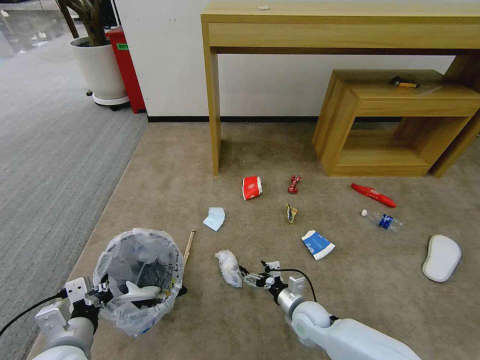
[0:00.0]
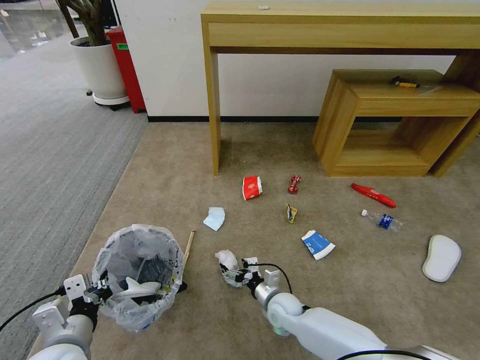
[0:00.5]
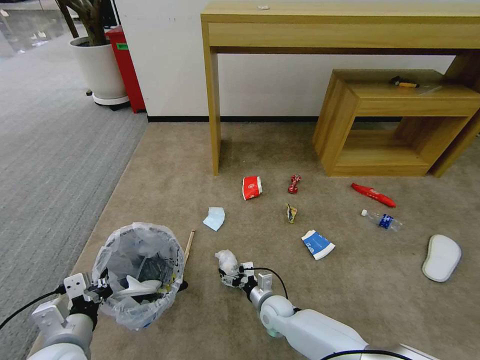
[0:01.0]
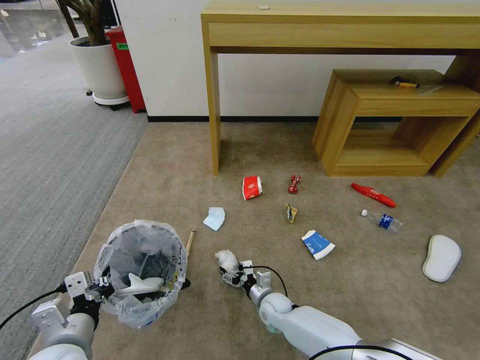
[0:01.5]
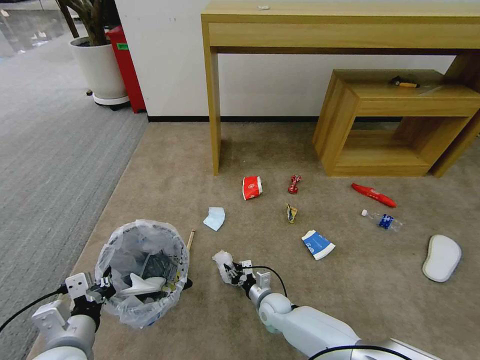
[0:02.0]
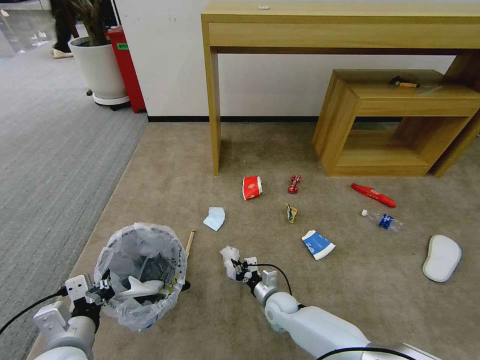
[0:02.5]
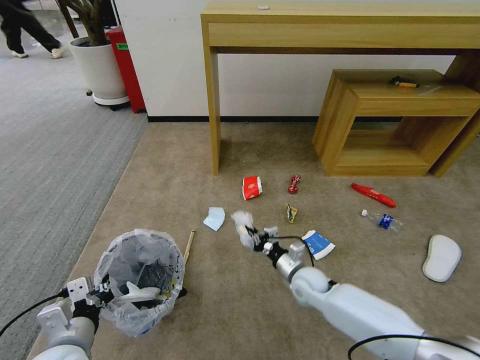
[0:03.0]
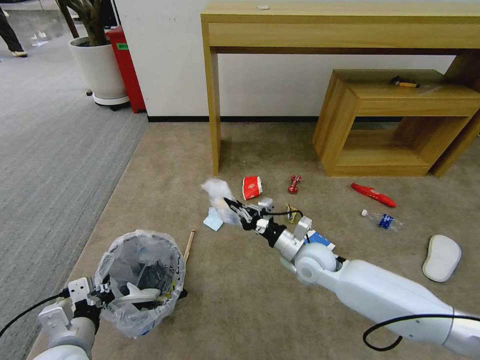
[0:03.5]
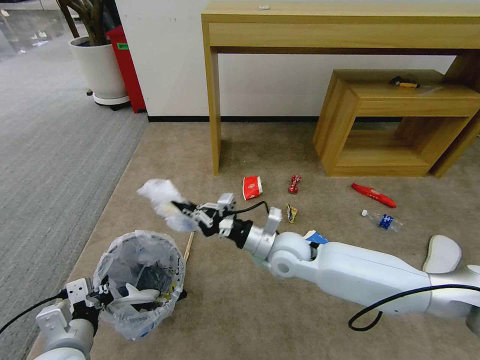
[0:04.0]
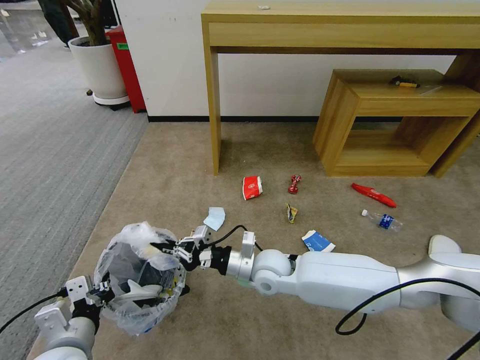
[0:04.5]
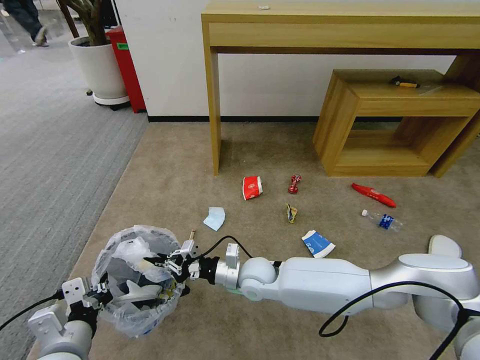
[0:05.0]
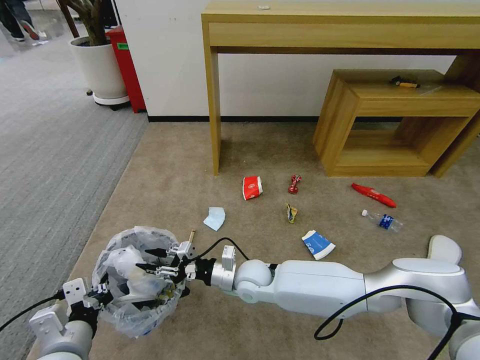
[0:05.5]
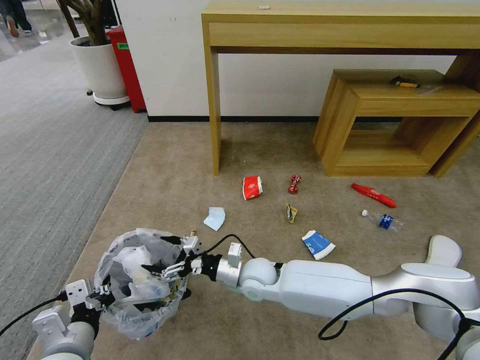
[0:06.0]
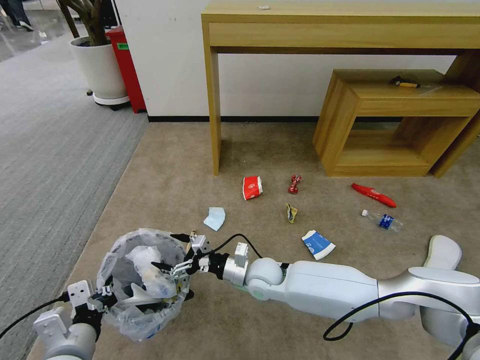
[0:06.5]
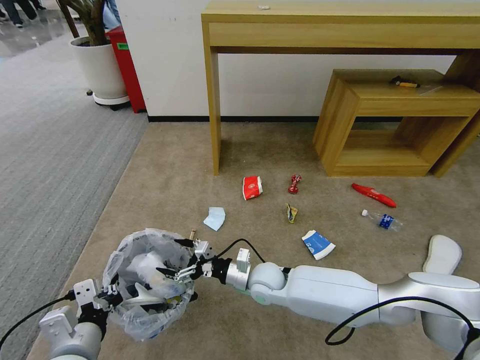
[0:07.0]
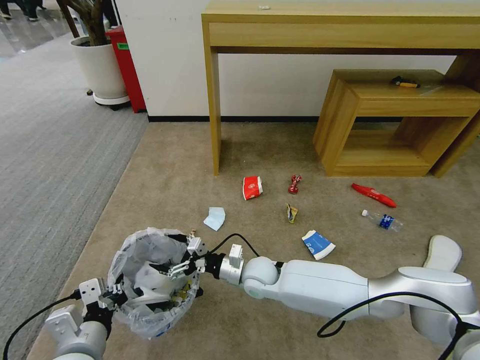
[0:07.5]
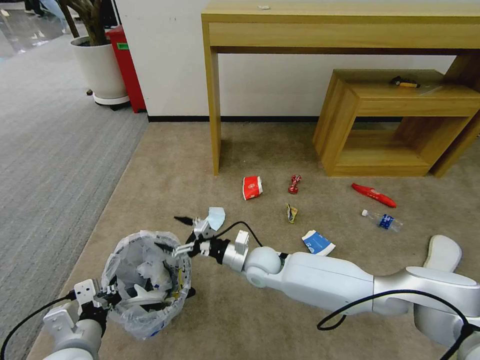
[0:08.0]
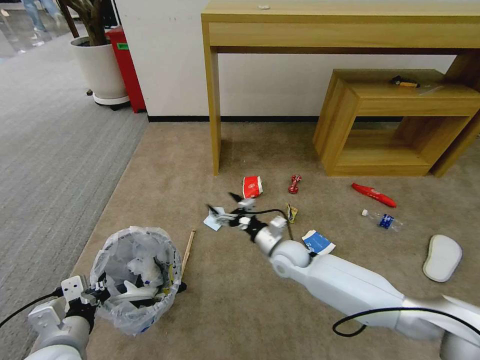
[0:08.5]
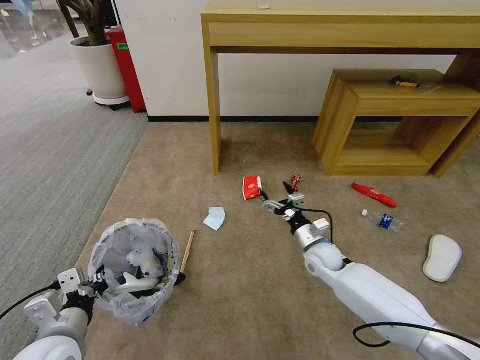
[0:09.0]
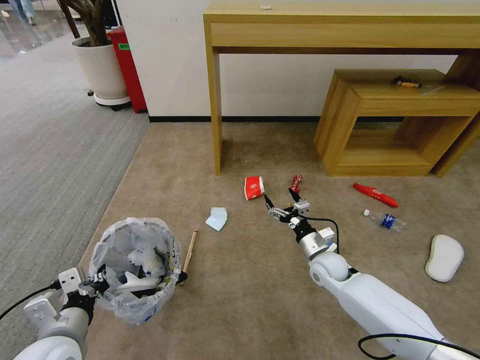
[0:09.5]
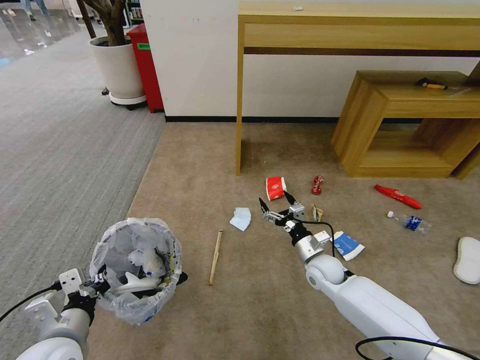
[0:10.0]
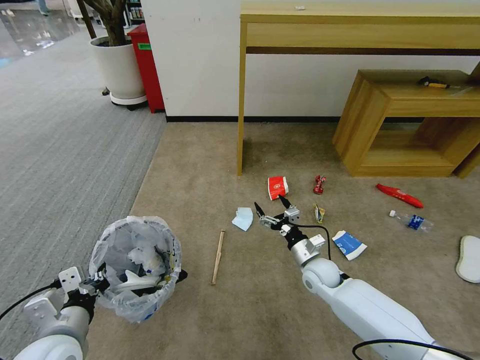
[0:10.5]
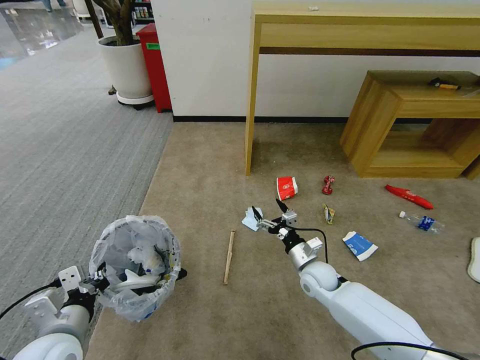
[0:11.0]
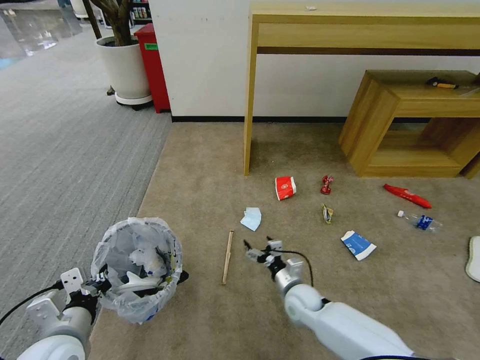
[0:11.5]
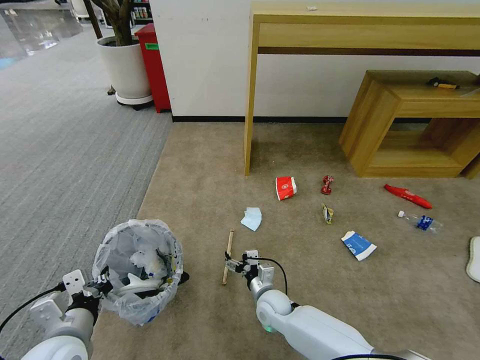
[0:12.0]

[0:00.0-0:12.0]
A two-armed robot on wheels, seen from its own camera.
Task of the whole recording: Pick up the trash bin and place the garbage on the floor into it.
0:00.0 to 0:02.0: The right gripper heads to the left and downward, covering about 10 cm, and closes up.
0:02.0 to 0:04.0: The right gripper goes about 30 cm upward.
0:04.0 to 0:06.0: The right gripper goes some 10 cm downward and to the left, and opens its fingers.
0:06.0 to 0:08.0: There are only small adjustments of the grippers.
0:08.0 to 0:10.0: The right gripper travels to the right by roughly 20 cm.
0:10.0 to 0:12.0: The right gripper travels to the left, downward and backward by roughly 20 cm.

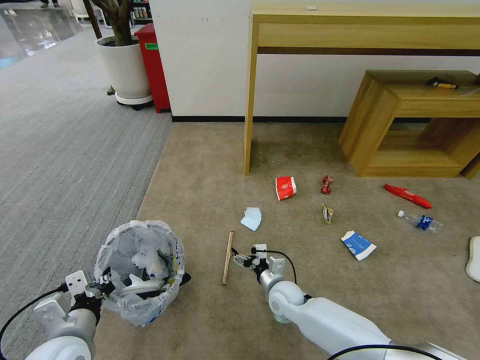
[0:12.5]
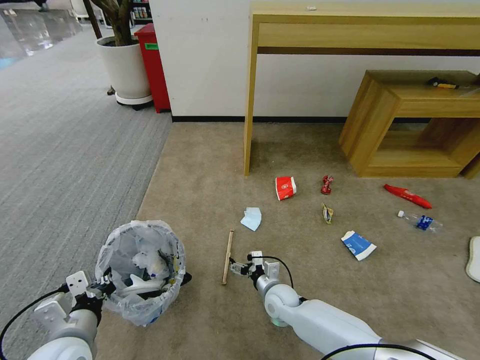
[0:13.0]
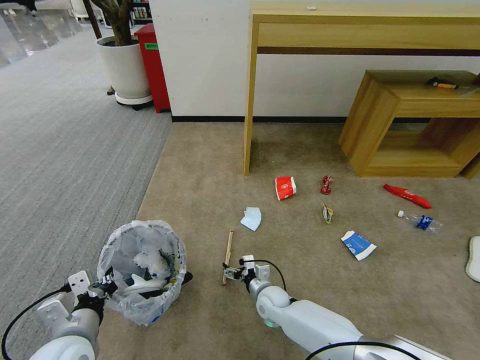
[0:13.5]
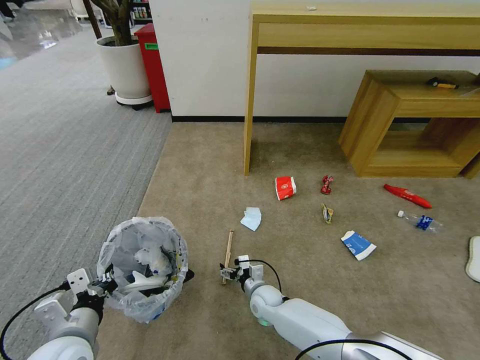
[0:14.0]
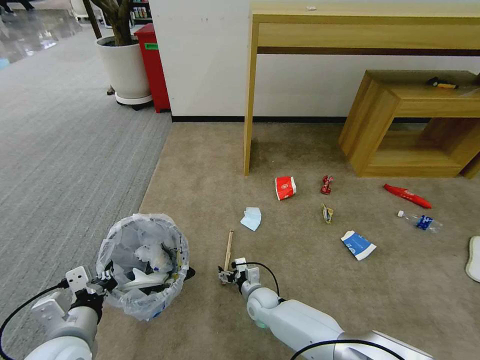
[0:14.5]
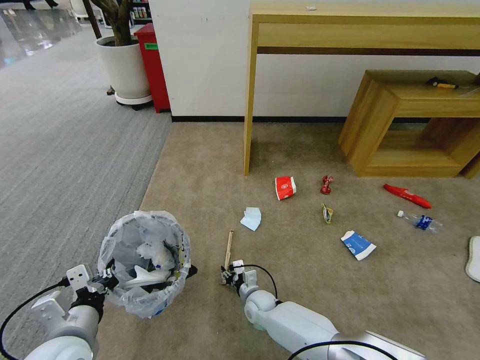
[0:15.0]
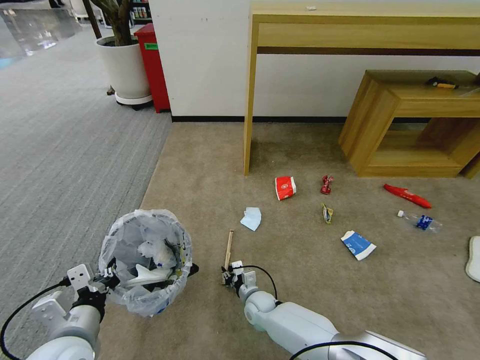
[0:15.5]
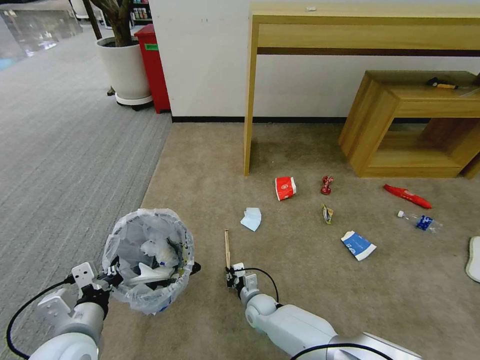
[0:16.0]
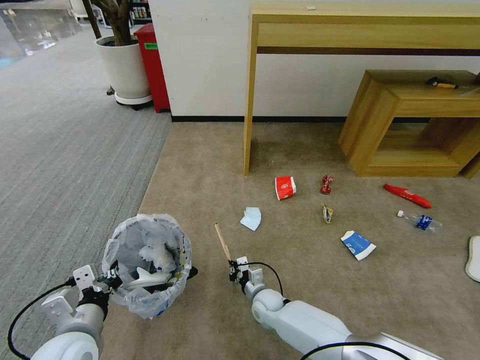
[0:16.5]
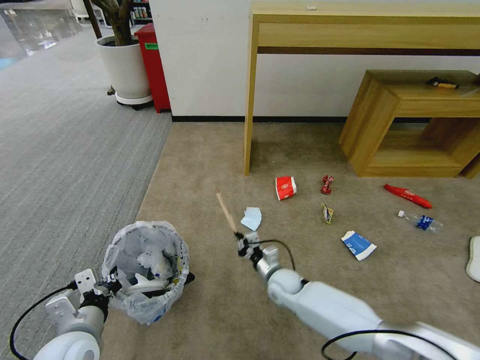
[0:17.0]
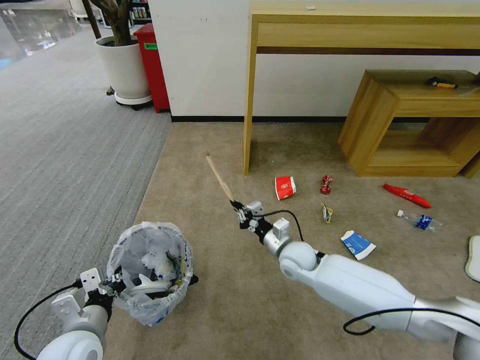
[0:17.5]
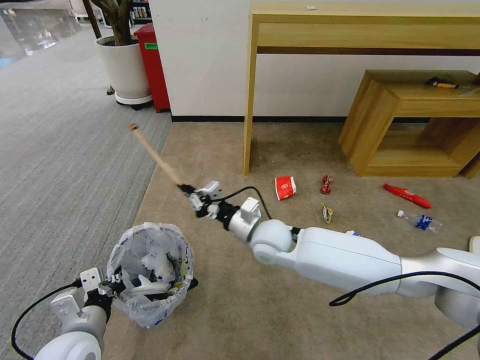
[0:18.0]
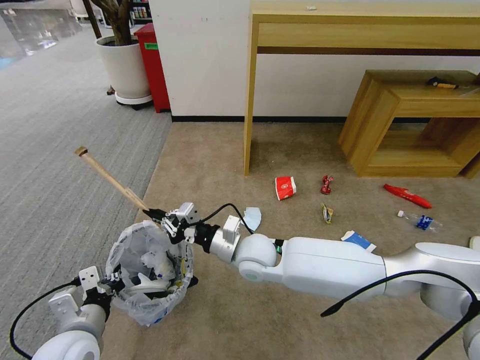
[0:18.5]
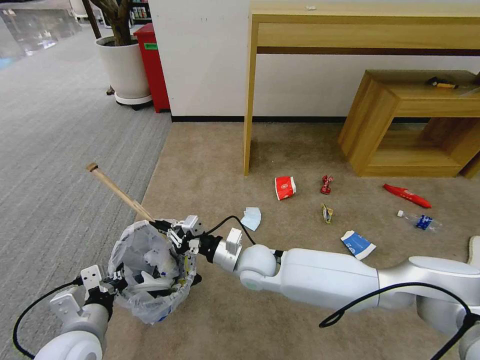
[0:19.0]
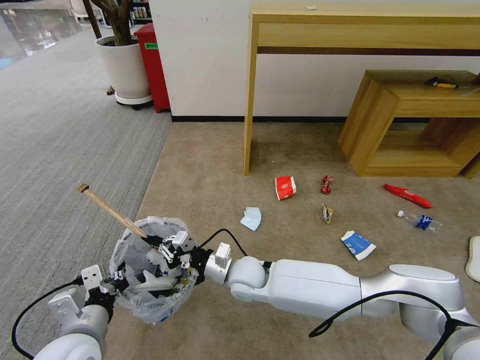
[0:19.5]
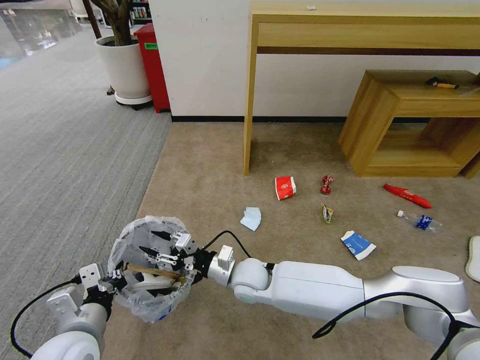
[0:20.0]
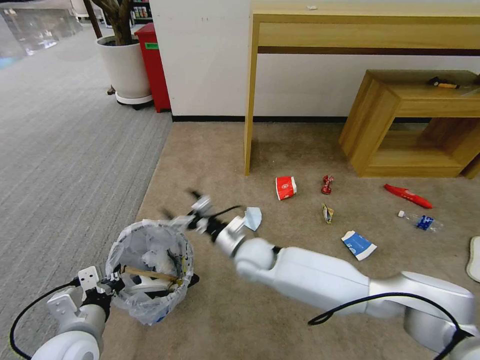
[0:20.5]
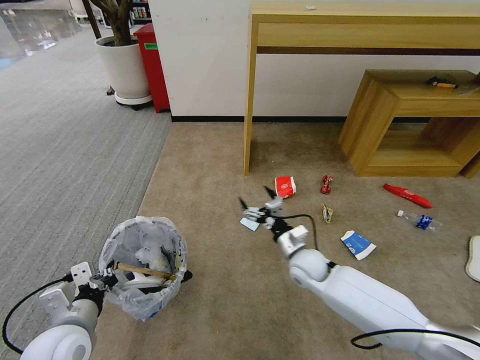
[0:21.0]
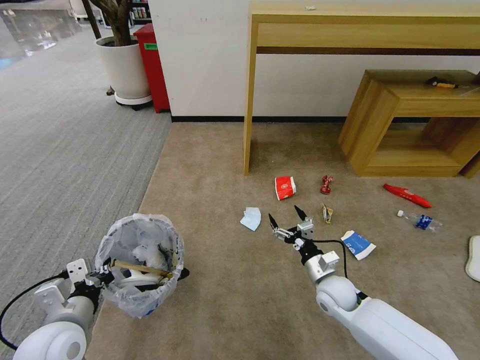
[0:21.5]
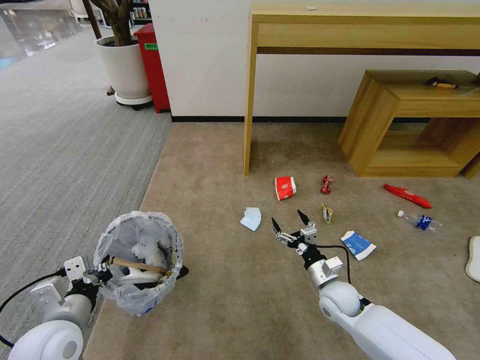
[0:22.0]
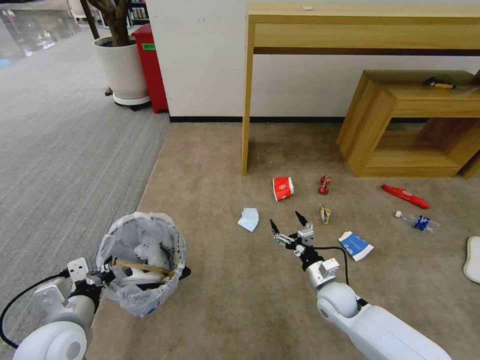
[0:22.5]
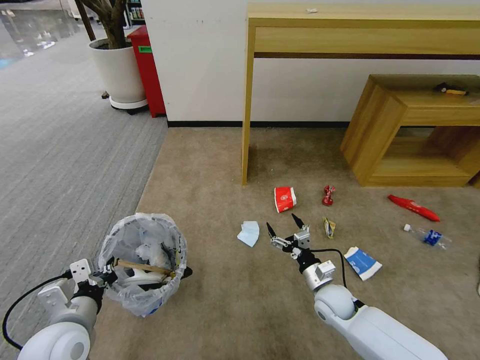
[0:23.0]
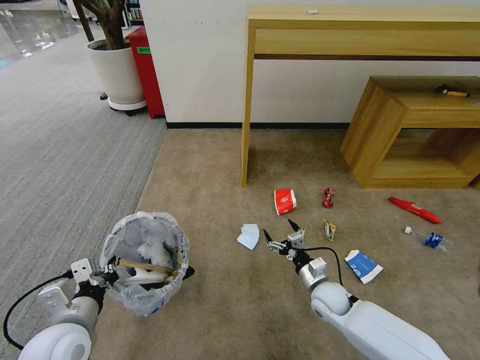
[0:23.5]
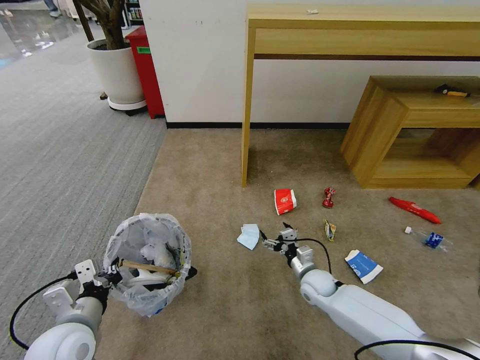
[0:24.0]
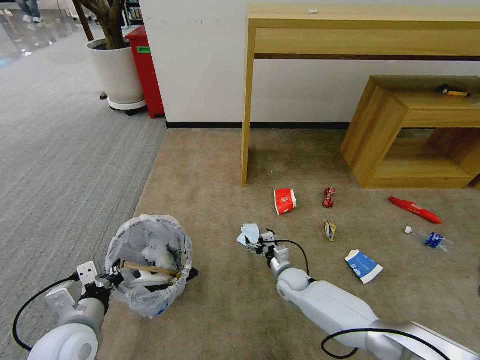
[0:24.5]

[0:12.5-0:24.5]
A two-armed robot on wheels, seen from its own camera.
Task of the whole recording: Pick up the trash bin and place the garbage on the floor into it.
0:12.5 to 0:14.5: The right gripper moves downward and to the left, roughly 10 cm.
0:14.5 to 0:16.5: The right gripper closes up.
0:16.5 to 0:18.5: The right gripper heads upward, covering about 25 cm.
0:18.5 to 0:20.5: The right gripper is displaced downward by roughly 5 cm, and opens up.
0:20.5 to 0:22.5: The right gripper moves to the right and downward, some 25 cm.
0:22.5 to 0:24.5: The right gripper heads to the left, forward and downward, covering some 15 cm.

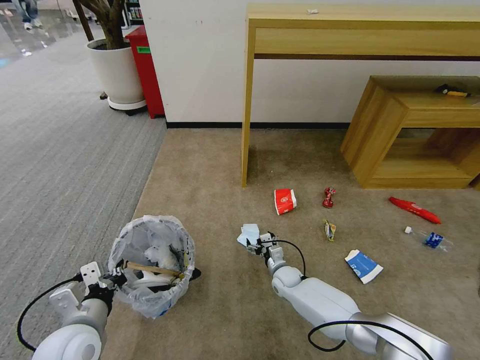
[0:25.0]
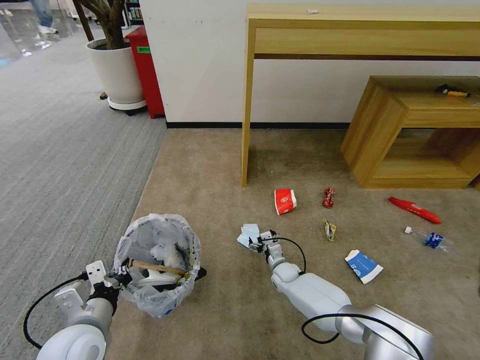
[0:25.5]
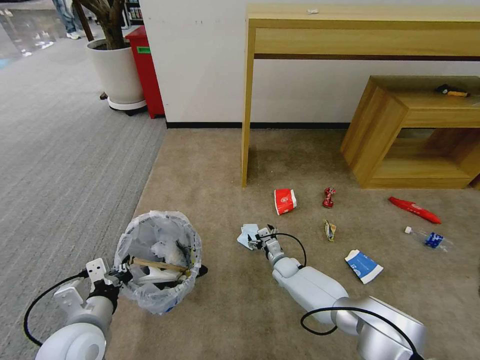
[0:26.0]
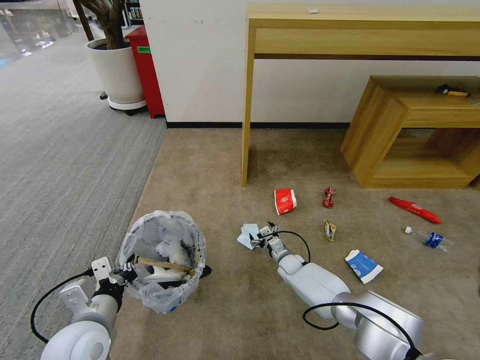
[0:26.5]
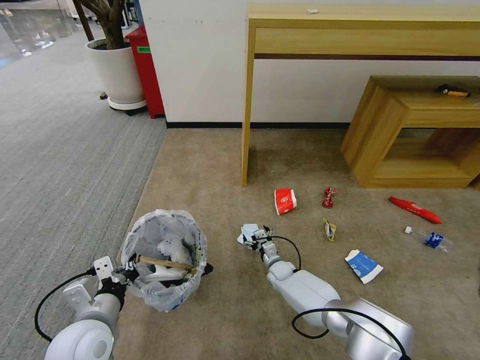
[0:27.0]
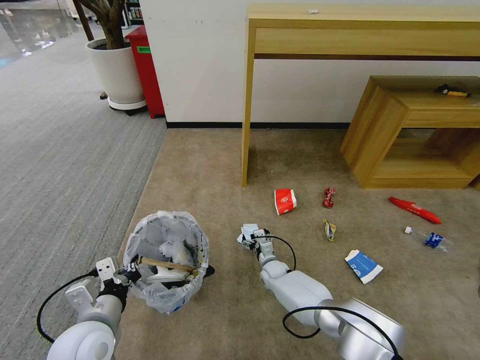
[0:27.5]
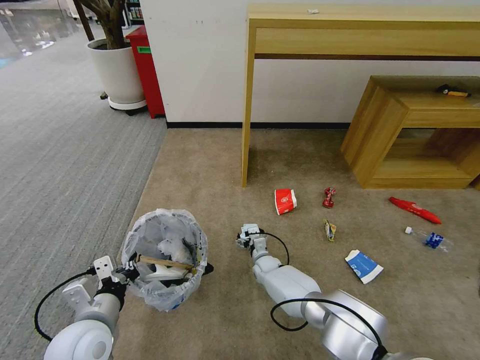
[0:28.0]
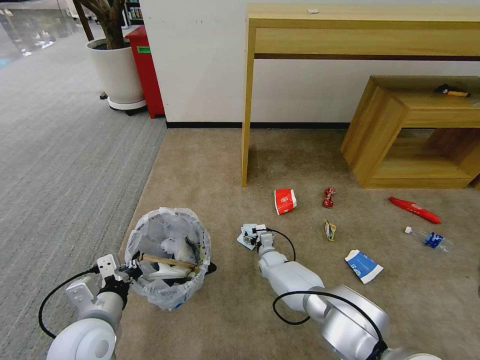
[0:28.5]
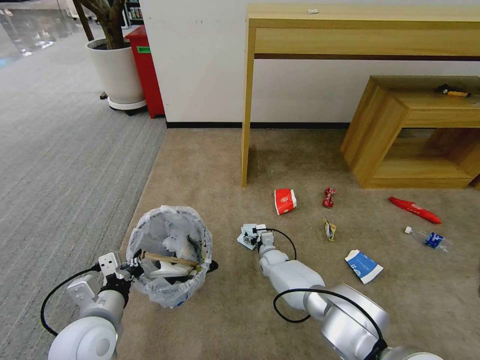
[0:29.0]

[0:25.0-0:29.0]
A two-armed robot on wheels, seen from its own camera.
Task of the whole recording: Pick up the trash bin and place the garbage on the floor into it.
0:25.0 to 0:27.0: The grippers make only small movements.
0:27.0 to 0:29.0: The right gripper moves roughly 5 cm.
